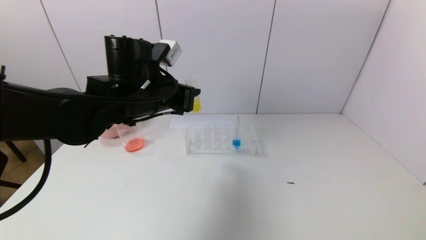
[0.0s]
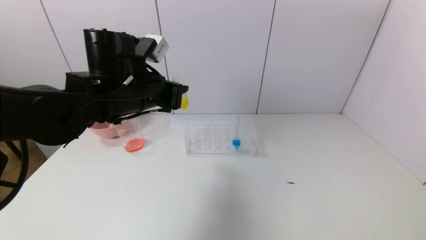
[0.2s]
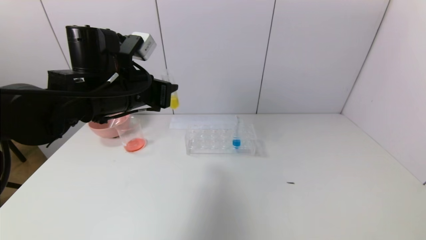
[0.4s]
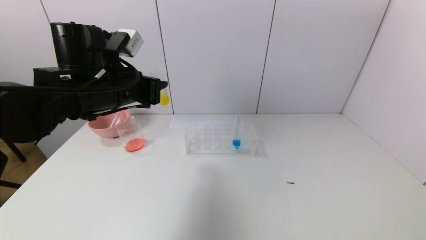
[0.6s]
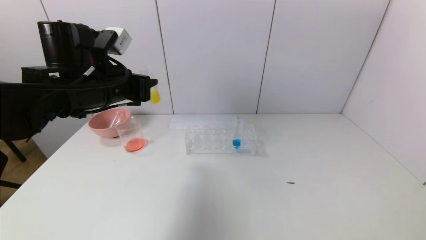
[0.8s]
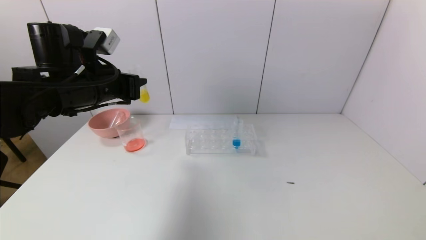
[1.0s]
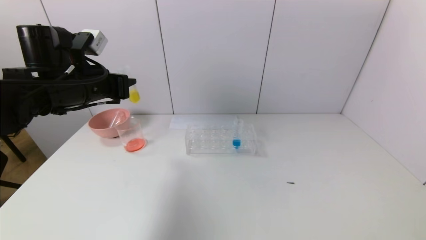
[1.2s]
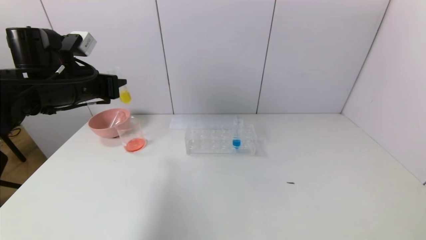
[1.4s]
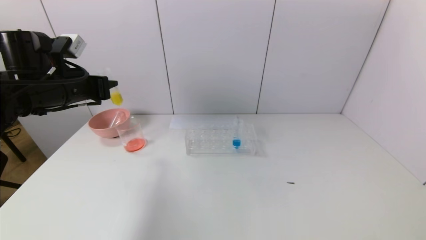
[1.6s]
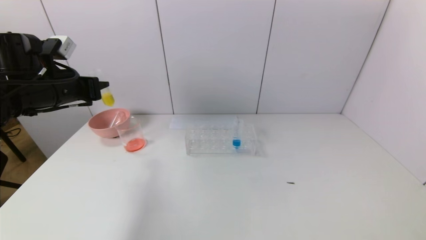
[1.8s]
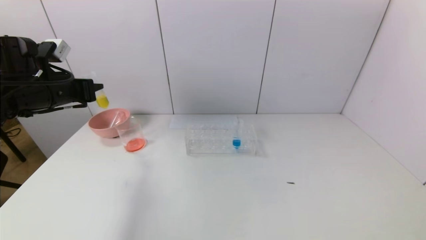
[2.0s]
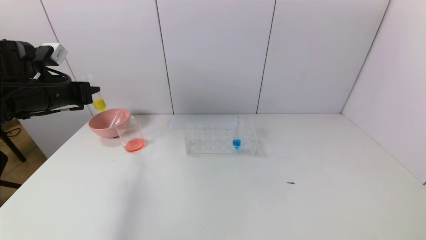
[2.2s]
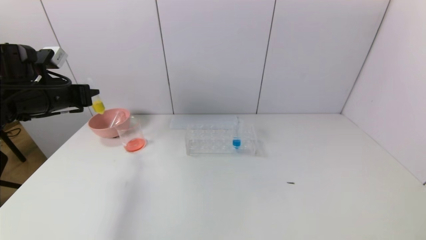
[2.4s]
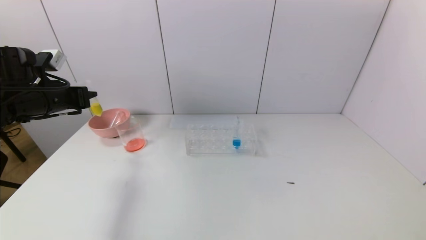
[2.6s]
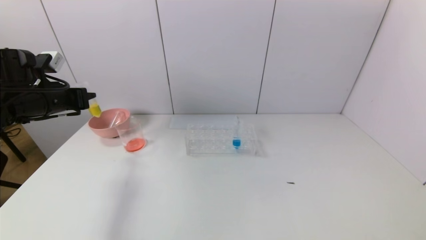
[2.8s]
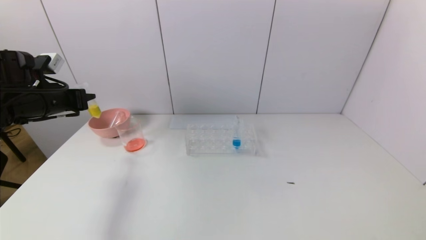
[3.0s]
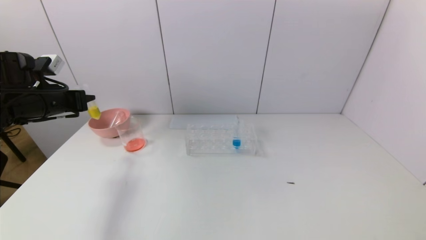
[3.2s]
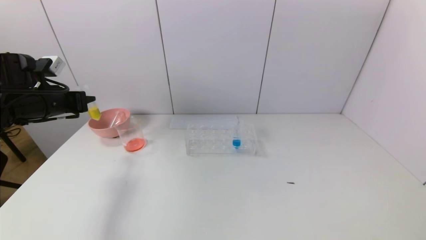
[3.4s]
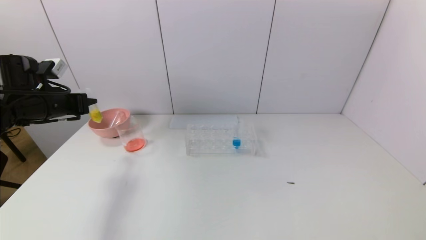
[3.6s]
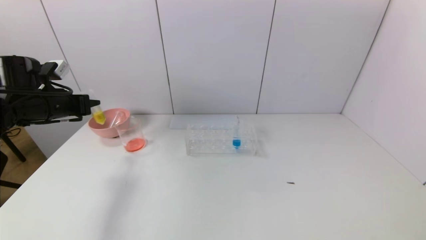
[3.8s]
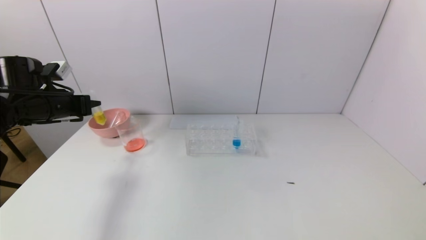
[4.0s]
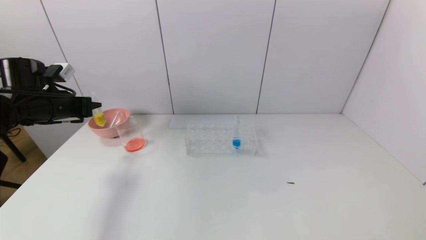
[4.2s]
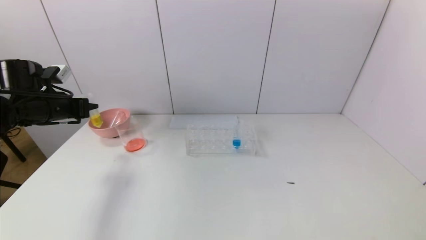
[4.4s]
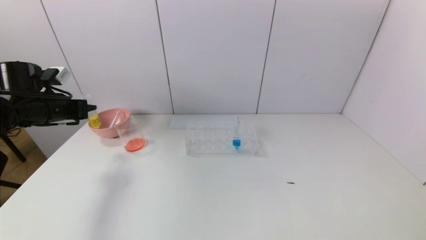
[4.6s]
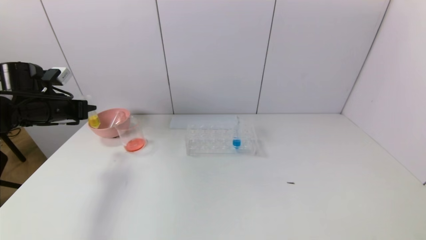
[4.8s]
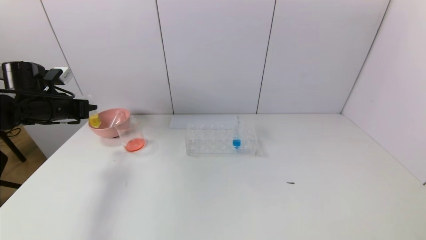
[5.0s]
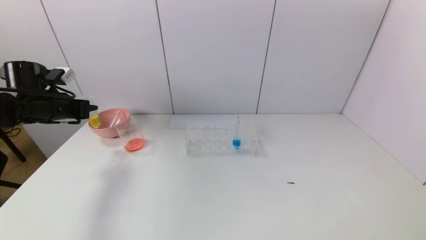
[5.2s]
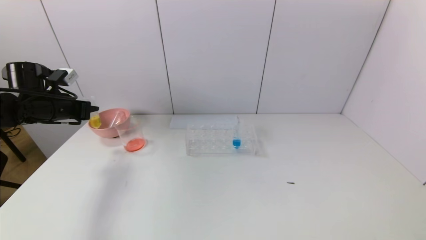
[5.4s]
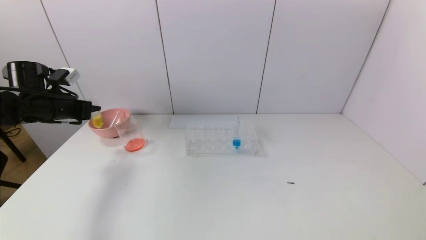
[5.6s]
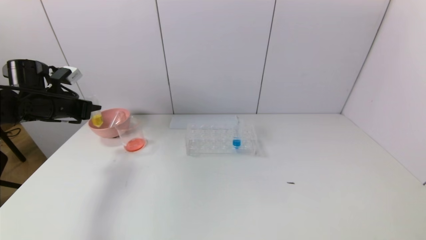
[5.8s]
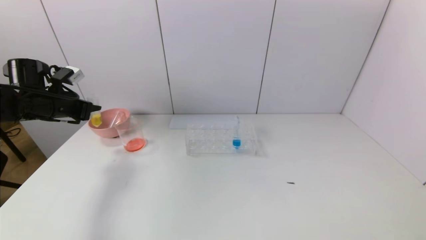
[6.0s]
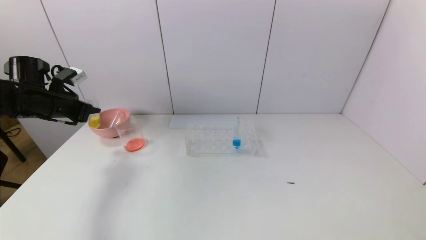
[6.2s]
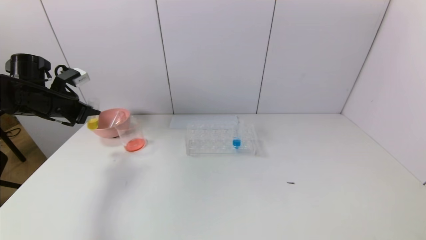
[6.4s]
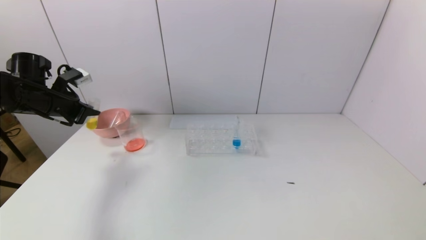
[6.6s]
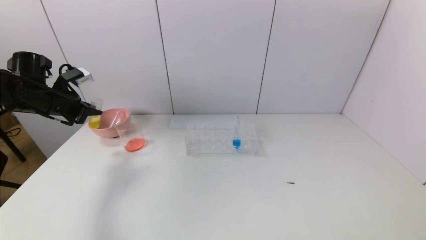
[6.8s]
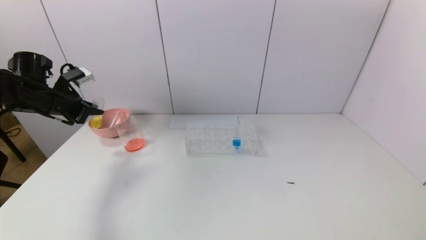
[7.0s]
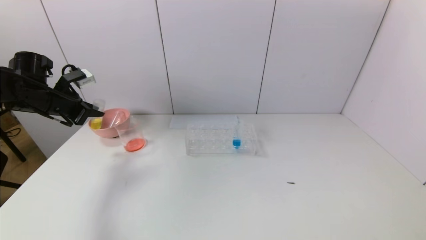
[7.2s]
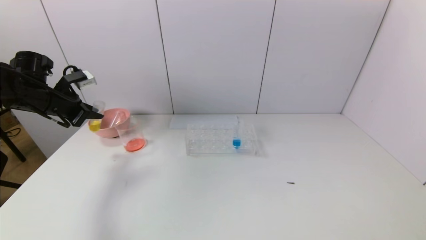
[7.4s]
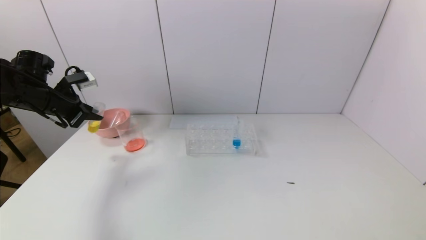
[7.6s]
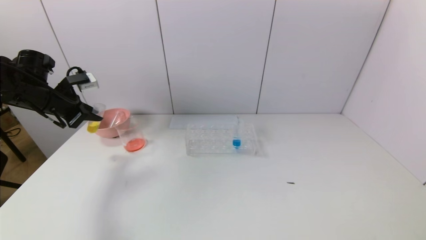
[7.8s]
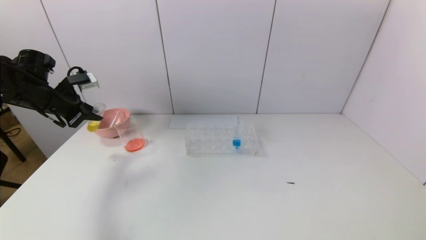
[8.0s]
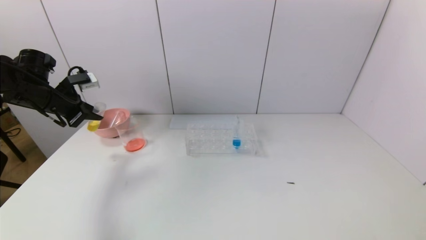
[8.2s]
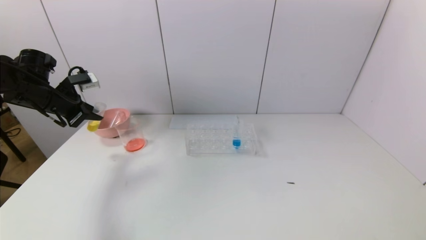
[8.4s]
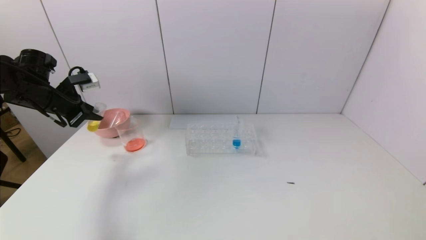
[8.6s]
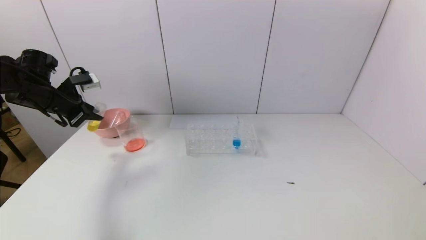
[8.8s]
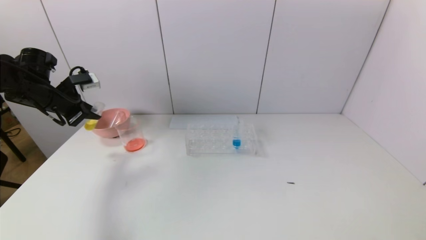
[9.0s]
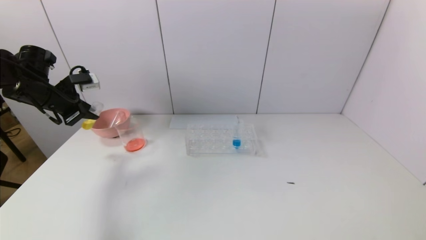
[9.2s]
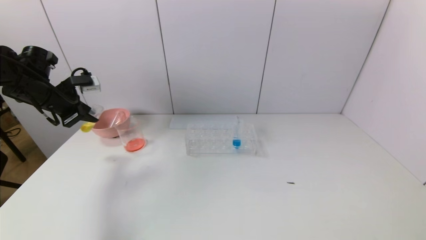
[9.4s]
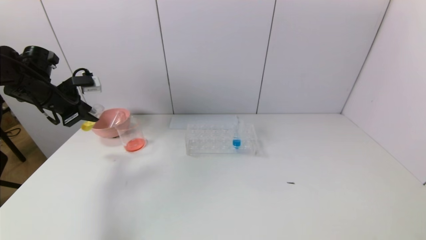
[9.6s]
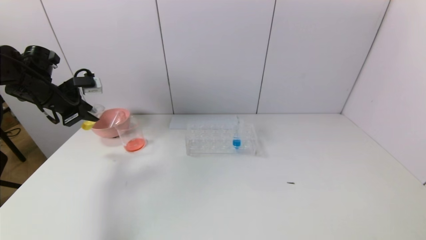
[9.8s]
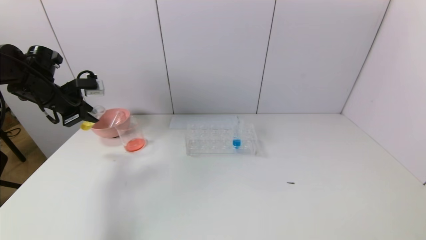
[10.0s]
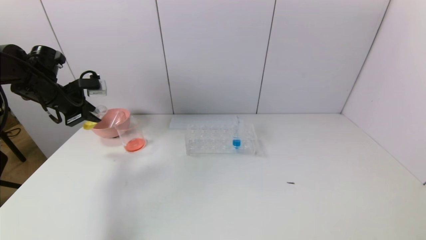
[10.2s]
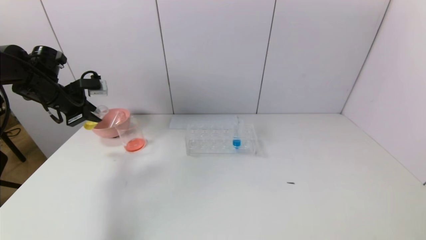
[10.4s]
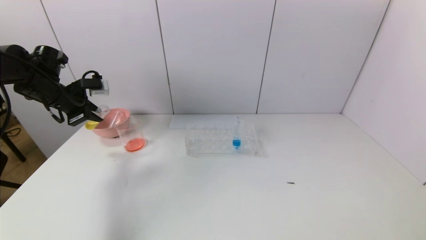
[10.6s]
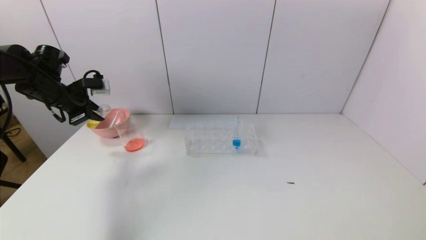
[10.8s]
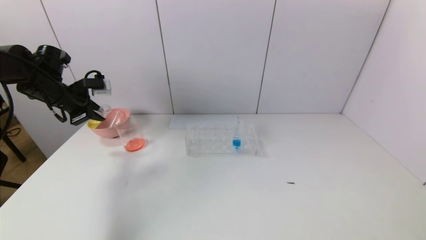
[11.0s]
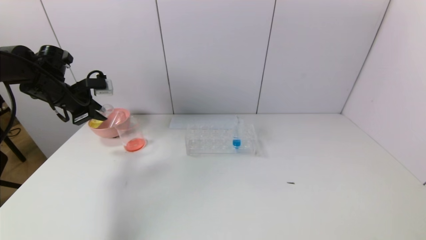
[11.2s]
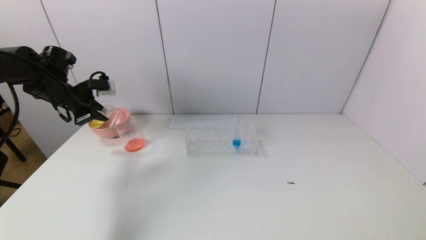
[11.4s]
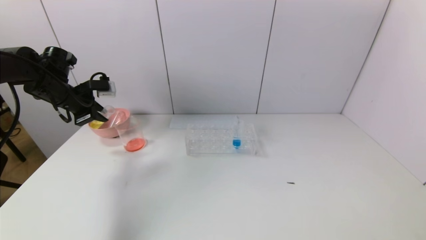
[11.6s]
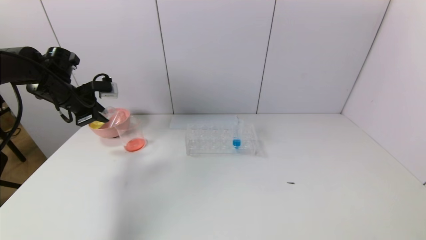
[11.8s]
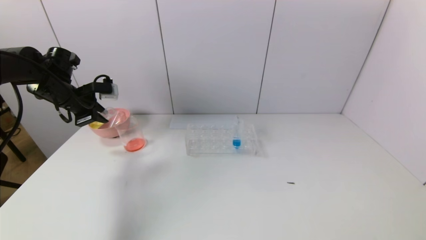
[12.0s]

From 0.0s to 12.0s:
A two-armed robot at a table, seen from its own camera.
Task of the whole recording: pick up the test tube with yellow pigment and the test tube with red pigment by grippers and pour them into the beaker.
From 0.0s to 1.6s: The left gripper goes about 15 cm to the left.
From 1.6s to 3.0s: The left gripper shifts about 5 cm to the left.
From 3.0s to 6.0s: The grippers stay close to where they were, moving slightly.
From 7.6s to 9.0s: The grippers stay close to where they were, moving slightly.
From 9.0s to 12.0s: The grippers move only a little.

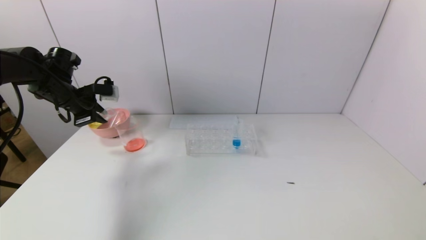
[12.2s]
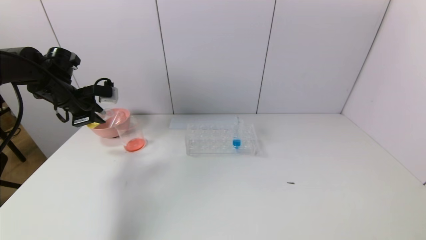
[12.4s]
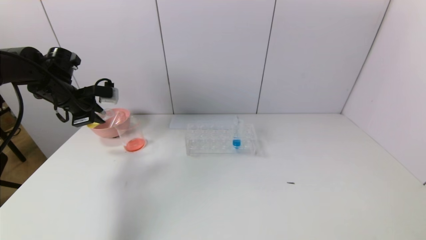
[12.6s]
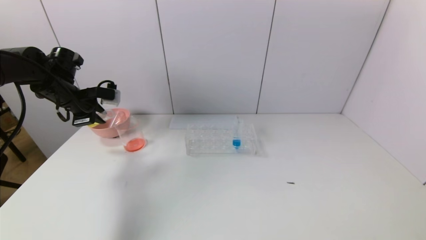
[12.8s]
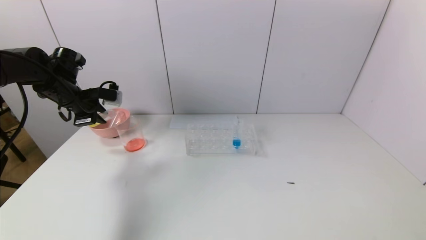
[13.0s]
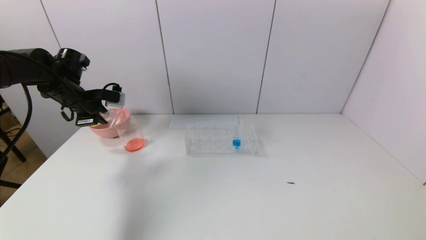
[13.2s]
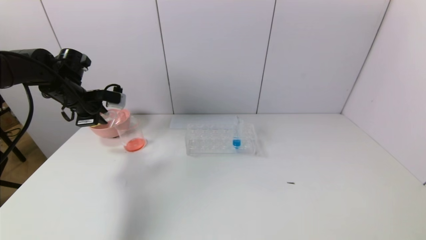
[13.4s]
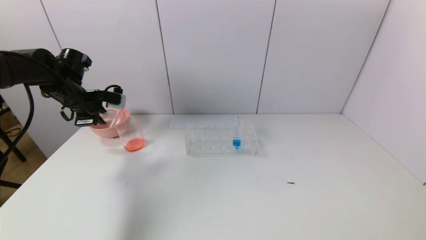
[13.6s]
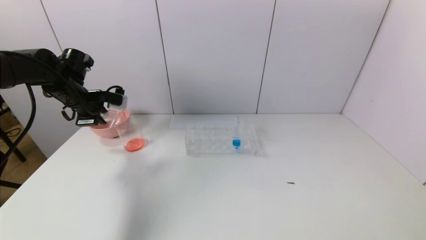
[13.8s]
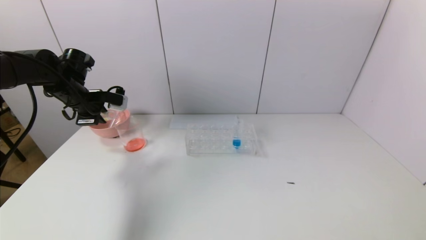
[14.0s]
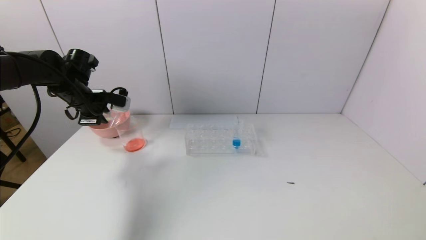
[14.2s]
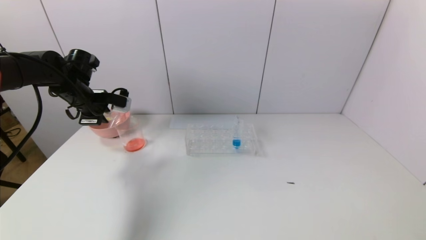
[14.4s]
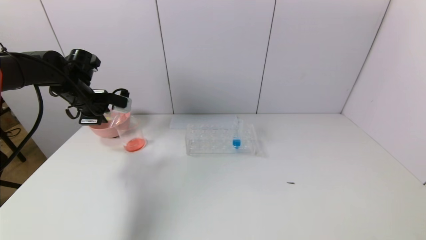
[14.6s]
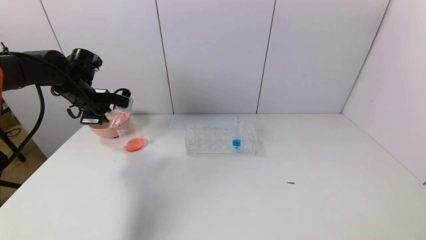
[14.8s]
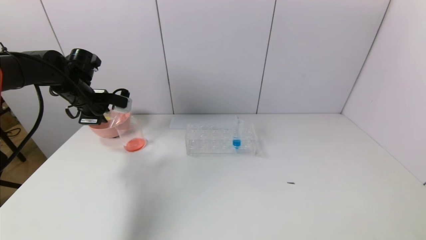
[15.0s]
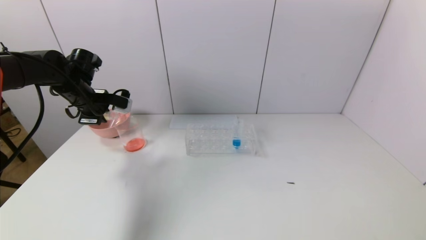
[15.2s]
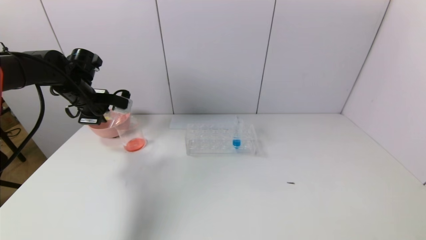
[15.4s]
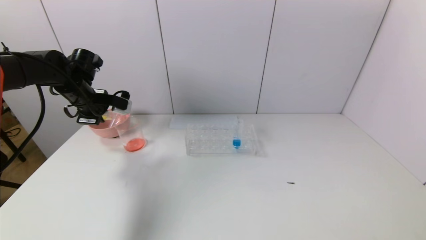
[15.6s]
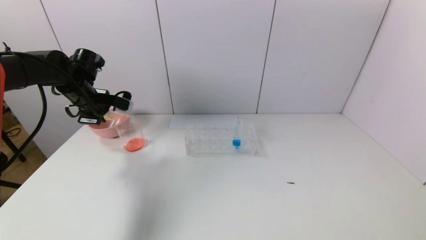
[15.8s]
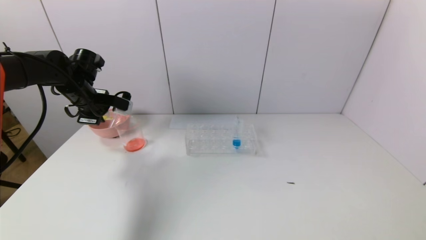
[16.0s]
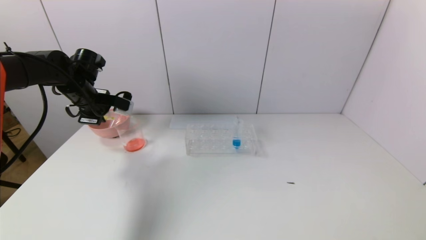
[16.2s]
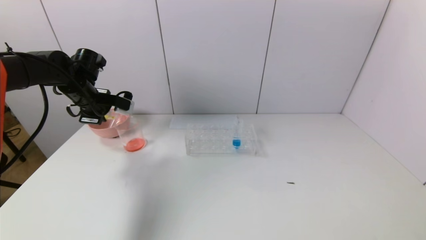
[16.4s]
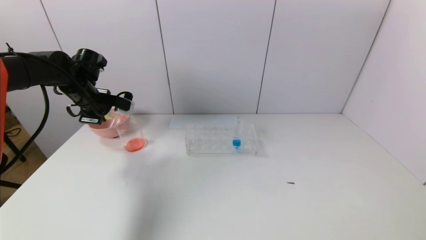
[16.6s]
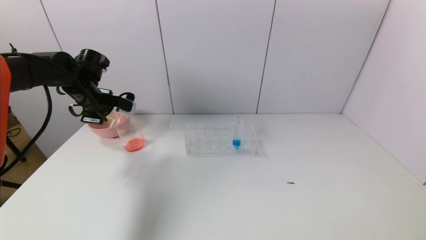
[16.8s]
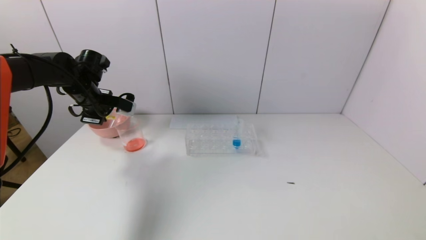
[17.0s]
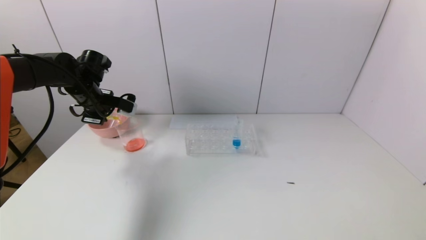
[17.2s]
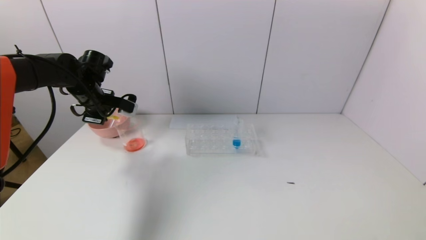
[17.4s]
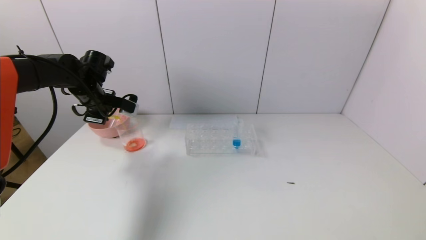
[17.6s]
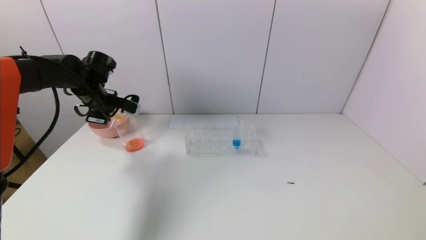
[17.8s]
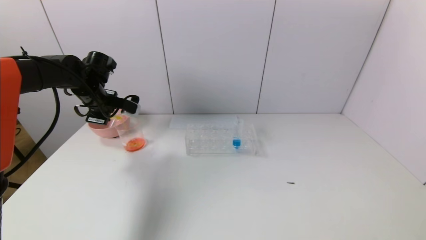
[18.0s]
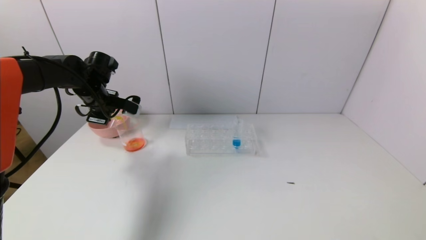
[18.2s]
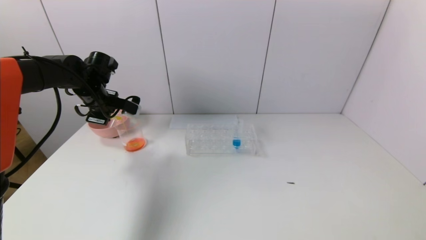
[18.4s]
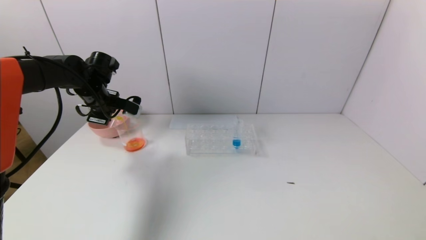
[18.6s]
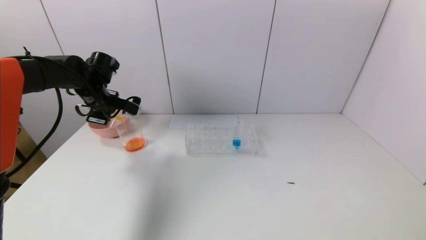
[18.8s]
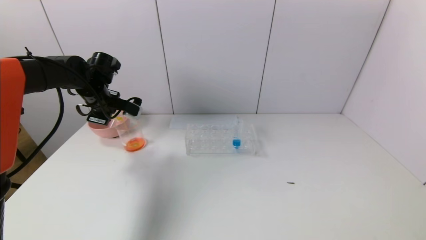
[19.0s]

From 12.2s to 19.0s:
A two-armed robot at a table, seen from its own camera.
Task of the whole recording: pick up the test tube with yellow pigment and the test tube with red pigment by grippers and pour them into the beaker.
From 12.2s to 13.6s: There are only small adjustments of the grippers.
From 13.6s to 17.6s: The grippers stay close to where they were, moving slightly.
From 17.6s to 19.0s: The two grippers keep their place.
